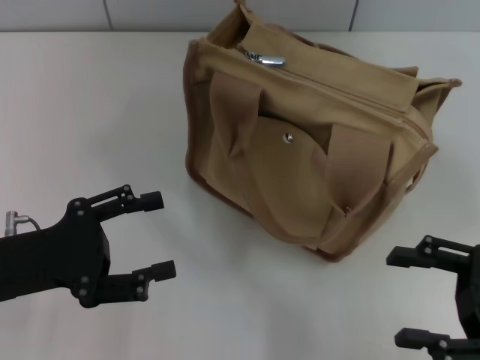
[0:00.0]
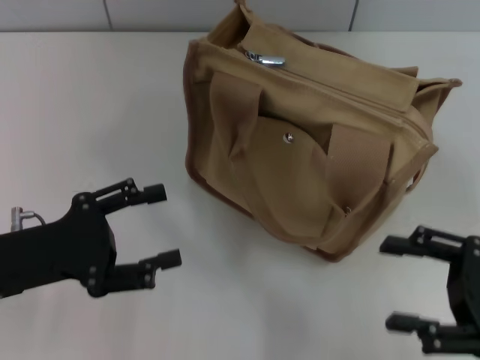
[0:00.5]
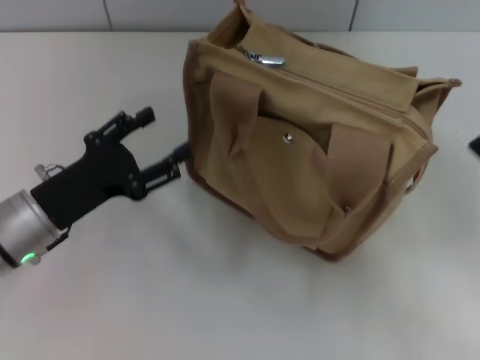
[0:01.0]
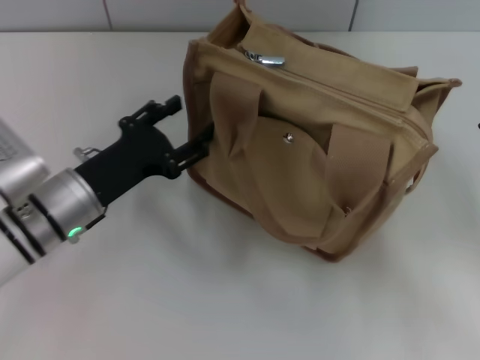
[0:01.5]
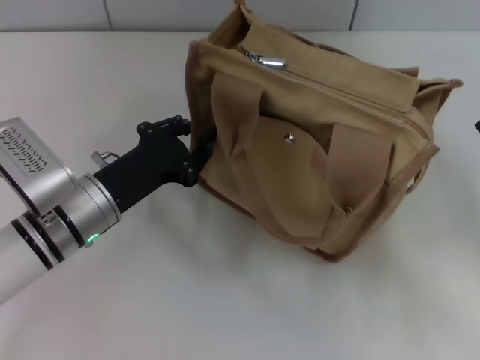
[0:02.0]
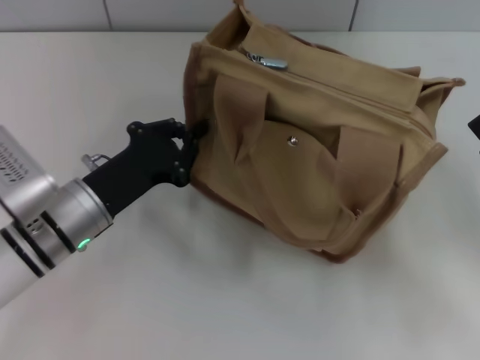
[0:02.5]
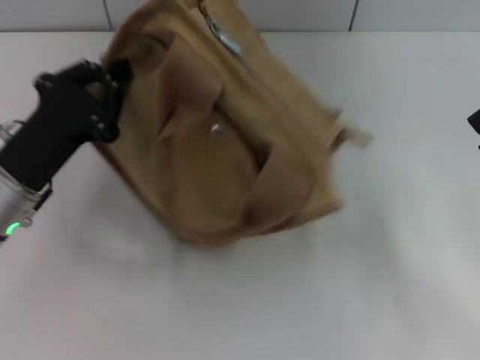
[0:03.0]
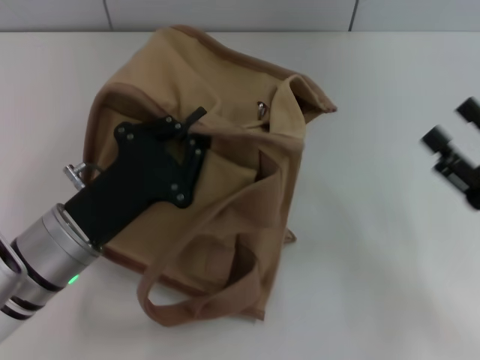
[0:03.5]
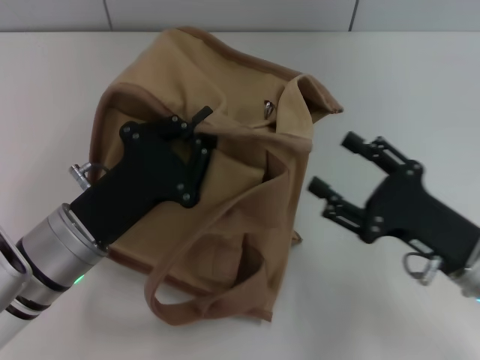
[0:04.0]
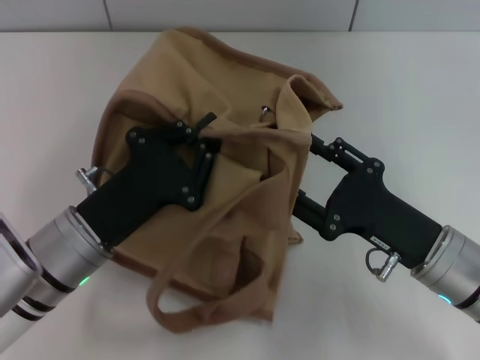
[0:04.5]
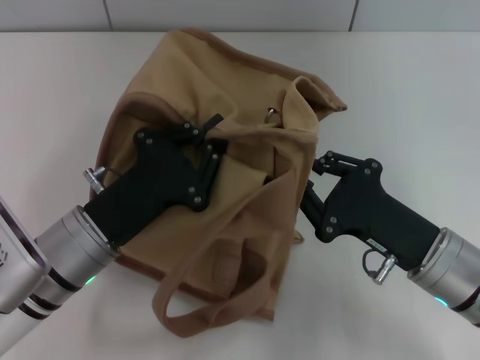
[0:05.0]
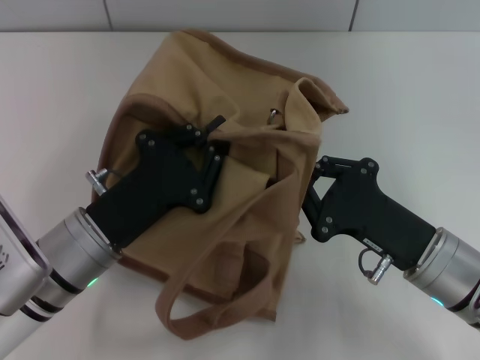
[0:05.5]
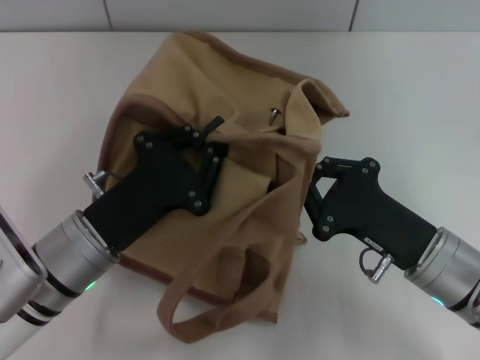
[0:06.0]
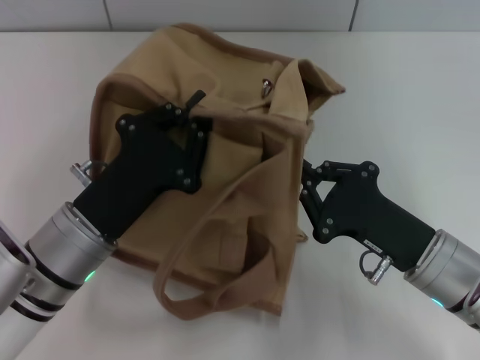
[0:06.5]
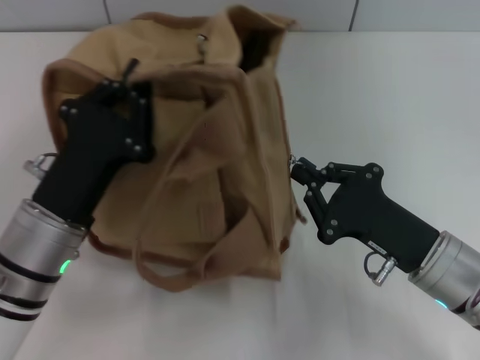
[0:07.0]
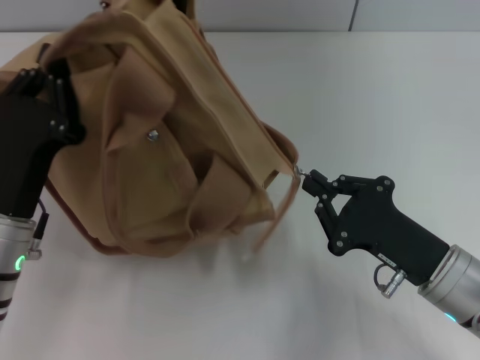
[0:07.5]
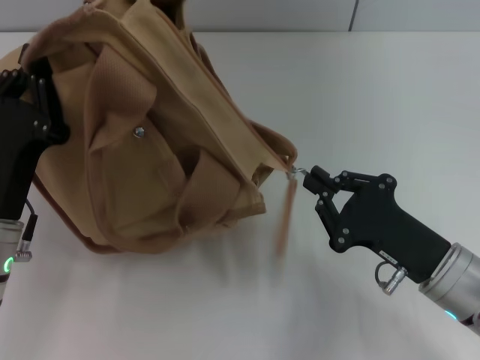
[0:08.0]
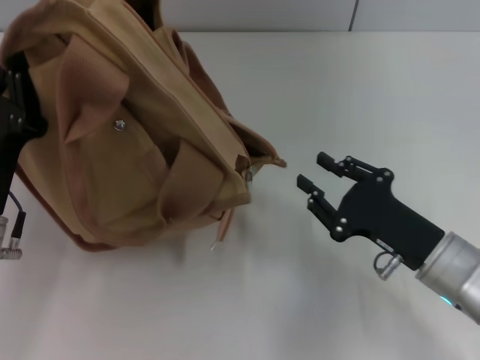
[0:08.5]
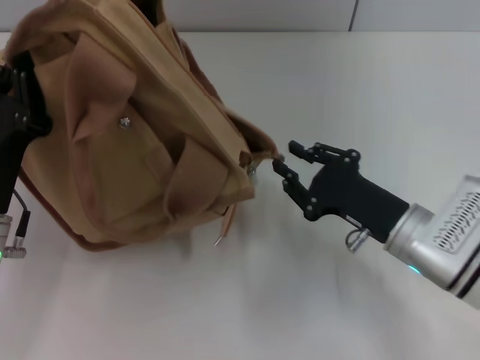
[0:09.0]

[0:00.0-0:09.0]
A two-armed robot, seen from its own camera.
Step, 0:00.0 to 0:08.0: Pull open the zipper with your right hand.
0:00.0 to 0:02.0: The left gripper heads to the right and forward, covering about 10 cm, and closes up.
0:02.0 to 0:04.5: The left gripper is displaced backward by about 5 cm, and closes its fingers. The right gripper moves to the left, about 15 cm.
0:04.5 to 0:07.0: The right gripper closes its fingers.
0:07.0 to 0:09.0: The right gripper opens its fingers.

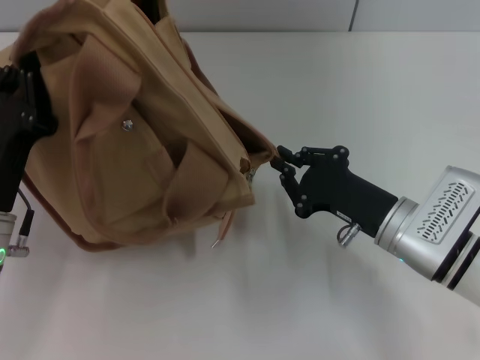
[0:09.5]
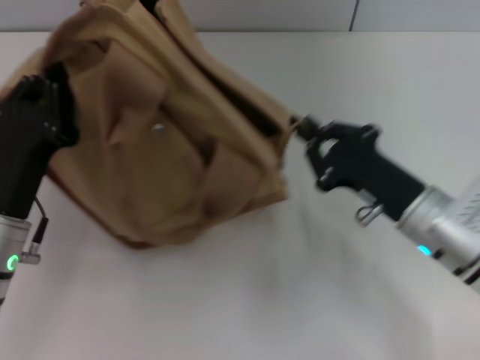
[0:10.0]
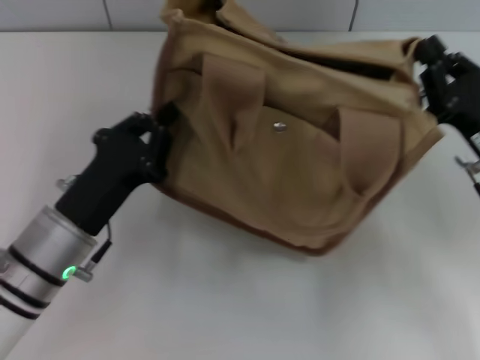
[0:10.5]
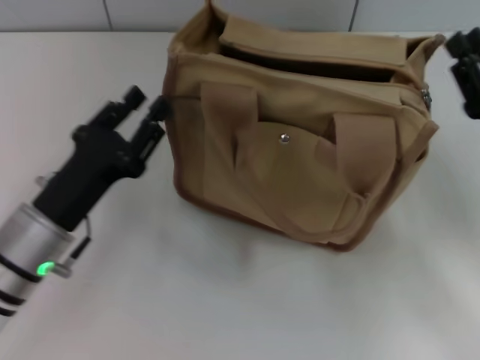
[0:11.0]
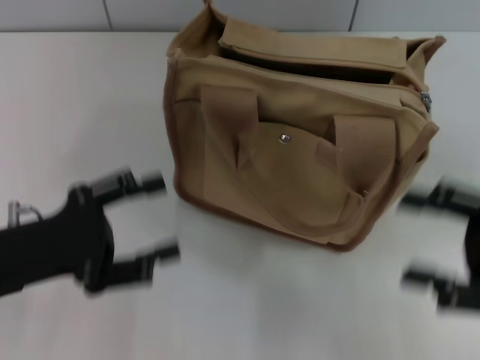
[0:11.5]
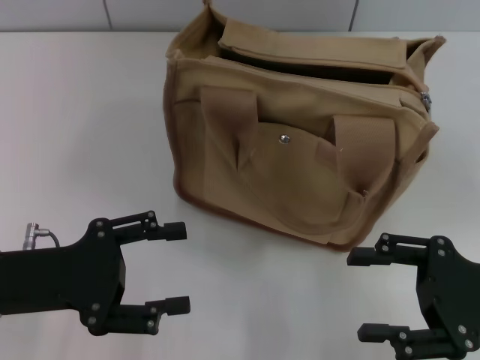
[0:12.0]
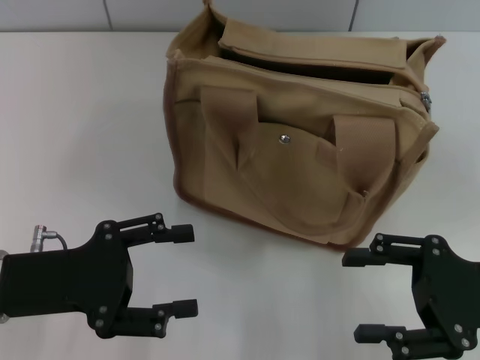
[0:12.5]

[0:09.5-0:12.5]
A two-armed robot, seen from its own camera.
Step, 0:09.5 to 0:11.0: Grab the bag with your left hand.
0:09.5 to 0:11.0: The right gripper goes some 10 cm to the right.
0:11.0 to 0:12.5: The left gripper moves about 5 cm, and opens up. The right gripper travels backward by about 5 cm, and opens.

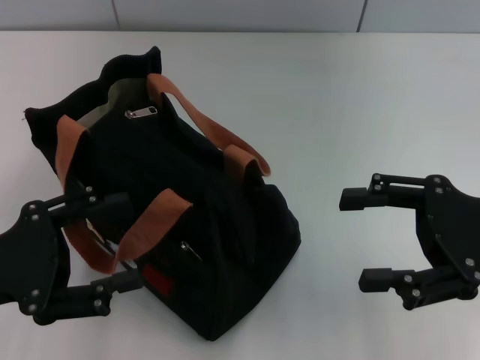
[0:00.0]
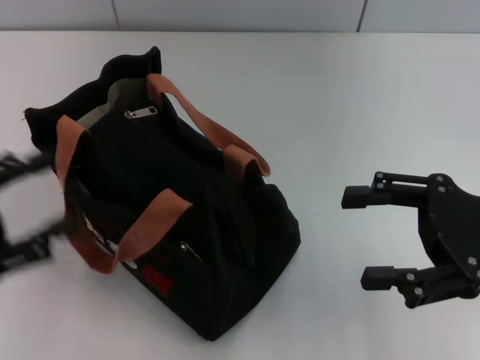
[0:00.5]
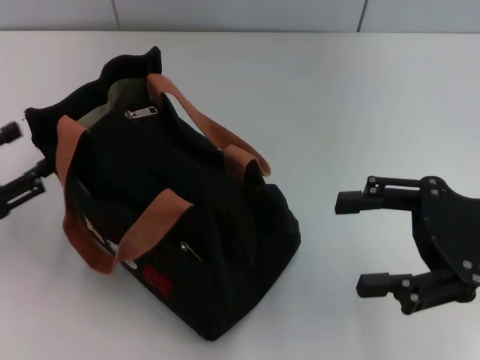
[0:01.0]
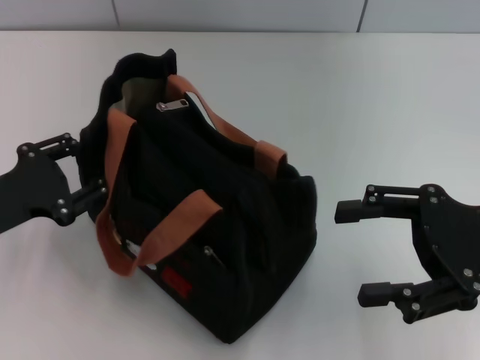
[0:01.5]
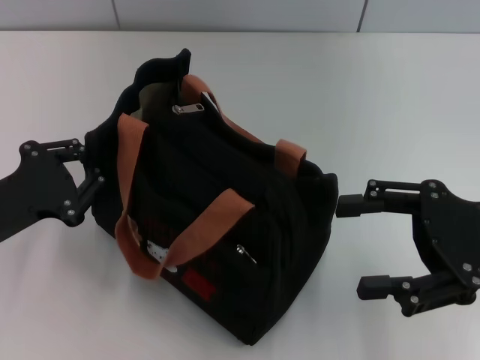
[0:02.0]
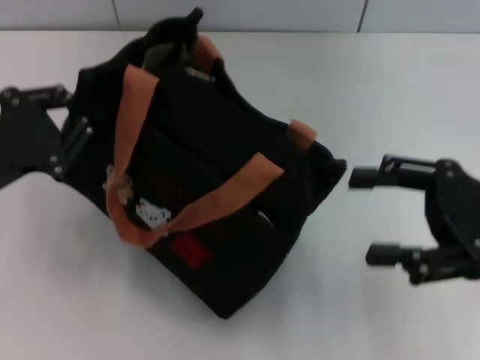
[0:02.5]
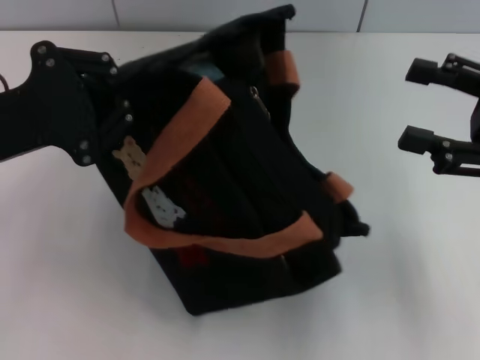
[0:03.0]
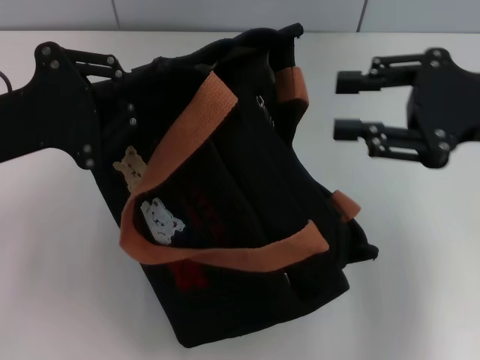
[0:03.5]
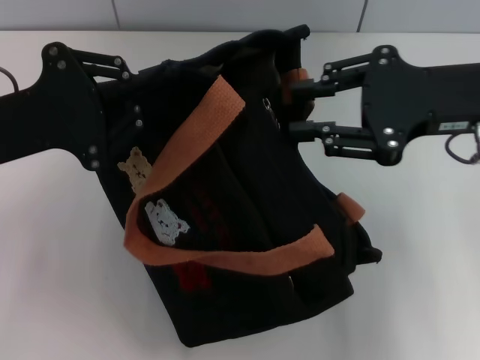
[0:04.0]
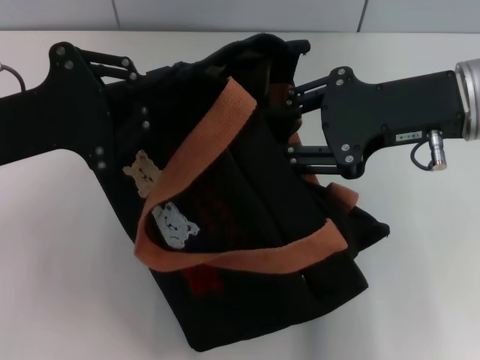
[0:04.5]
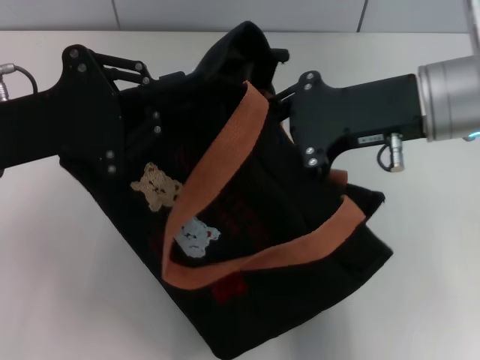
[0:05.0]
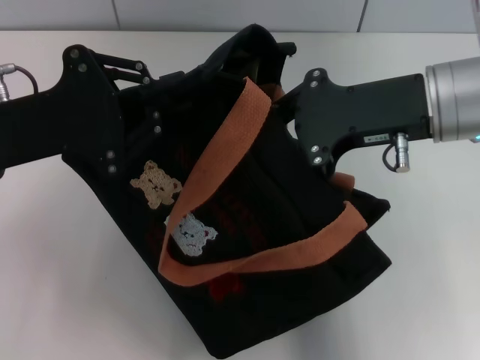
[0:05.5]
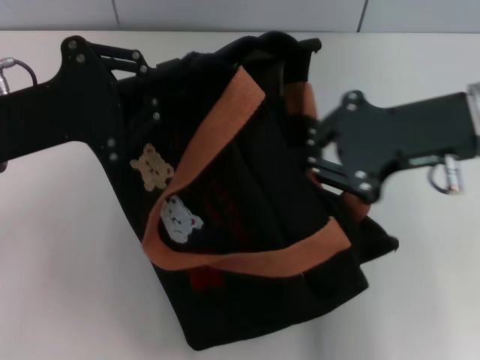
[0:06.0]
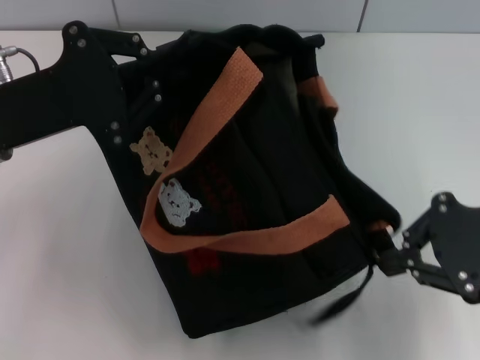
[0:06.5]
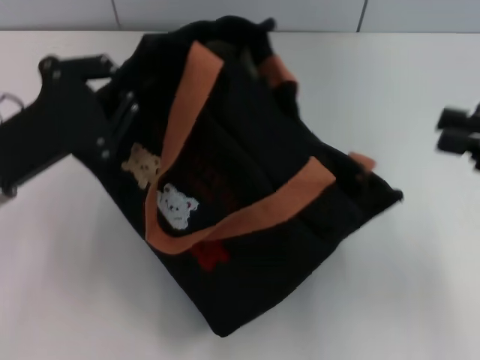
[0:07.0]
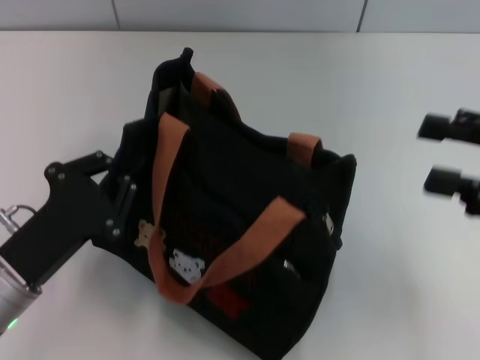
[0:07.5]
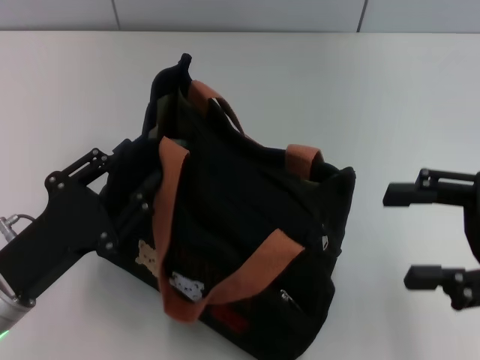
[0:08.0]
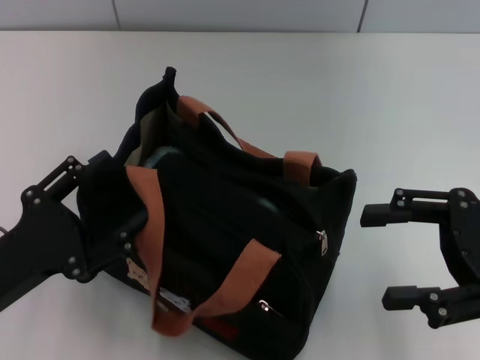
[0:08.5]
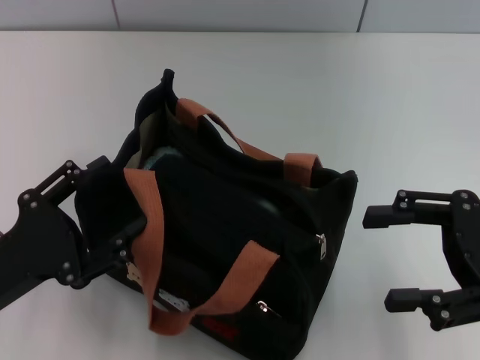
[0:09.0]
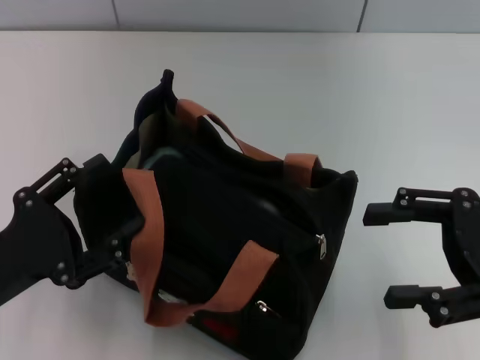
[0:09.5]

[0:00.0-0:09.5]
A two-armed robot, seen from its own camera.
Step, 0:00.0 to 0:06.5: Pull open the zipper with your right hand.
Step, 0:07.0 to 0:08.0: Grab the bag with your left hand.
0:00.0 to 0:02.0: The left gripper moves about 5 cm, and closes.
0:02.0 to 0:04.0: The left gripper shifts approximately 10 cm upward, while the right gripper goes approximately 10 cm upward and forward, and closes.
0:04.0 to 0:05.5: The right gripper shifts by roughly 5 cm, and closes up.
0:05.5 to 0:07.5: The right gripper is displaced to the right and backward by about 15 cm, and opens its fingers, while the left gripper travels downward and backward by about 15 cm.
0:07.5 to 0:09.5: The left gripper opens.

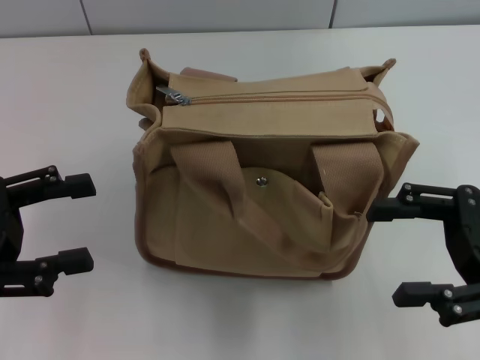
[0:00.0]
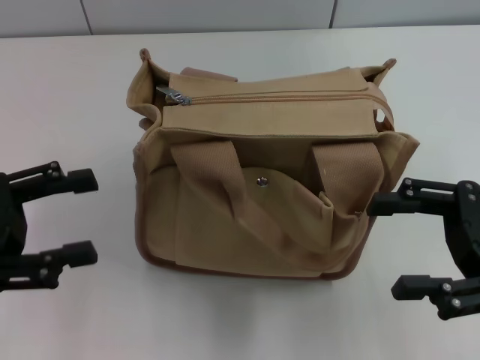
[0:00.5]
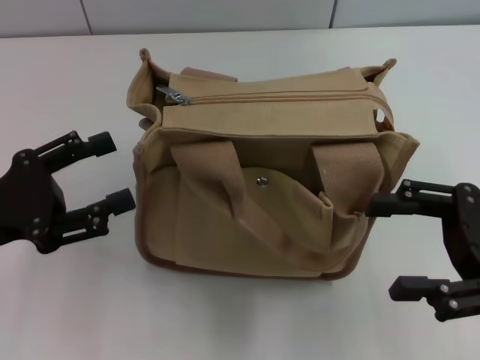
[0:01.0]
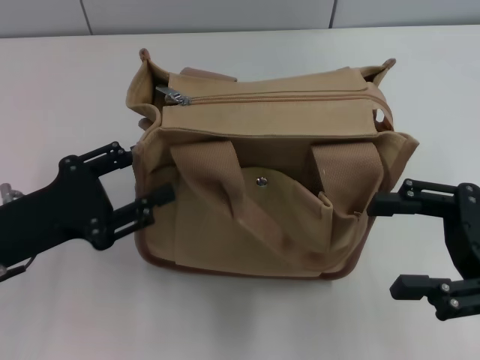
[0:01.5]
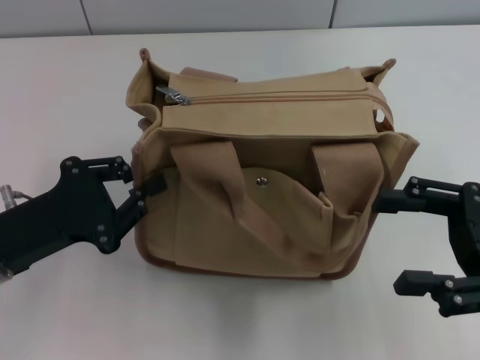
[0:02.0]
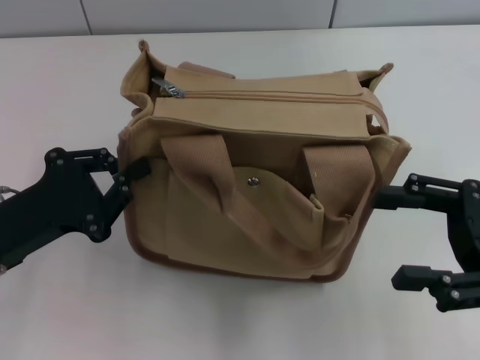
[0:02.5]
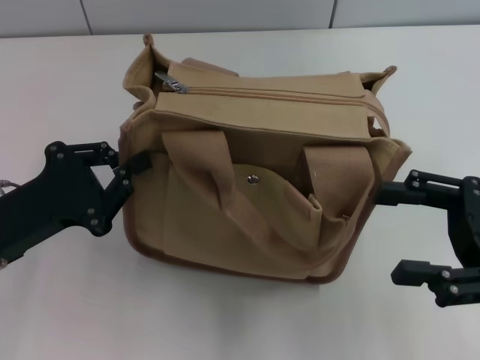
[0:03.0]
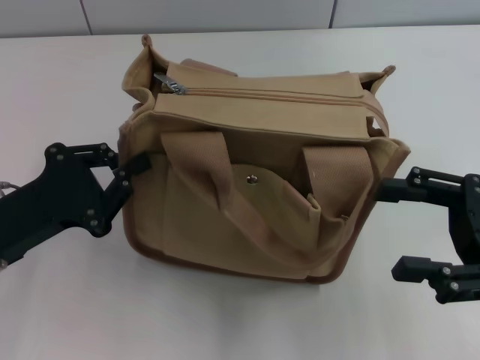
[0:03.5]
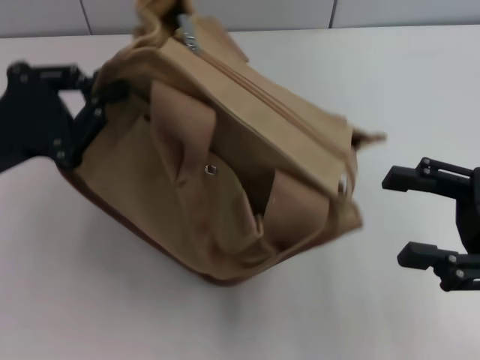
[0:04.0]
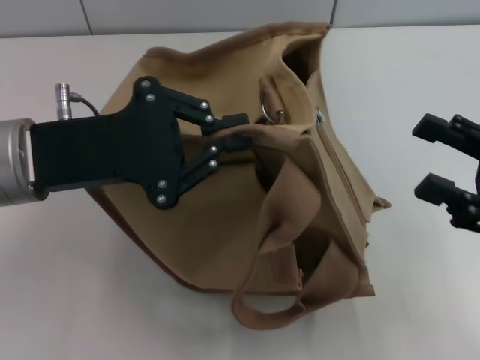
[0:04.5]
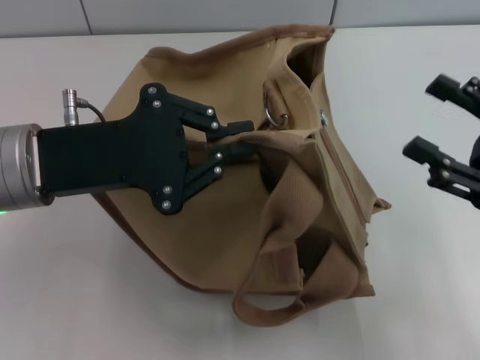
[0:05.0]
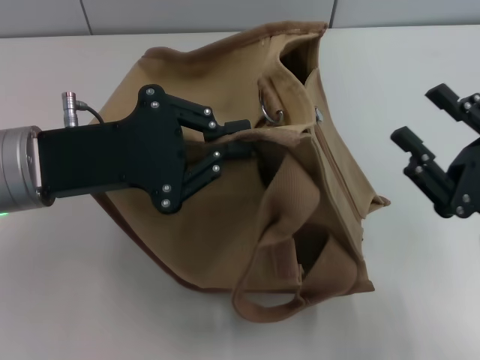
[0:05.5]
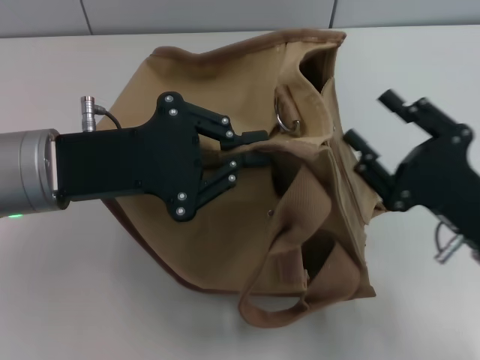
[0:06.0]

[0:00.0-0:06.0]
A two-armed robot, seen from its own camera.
0:00.0 to 0:02.0: The left gripper travels to the right and downward by approximately 10 cm, and closes.
0:02.0 to 0:04.0: The left gripper shifts some 5 cm upward.
0:04.0 to 0:06.0: The right gripper heads downward and to the left, covering about 10 cm, while the left gripper goes approximately 10 cm to the right.
